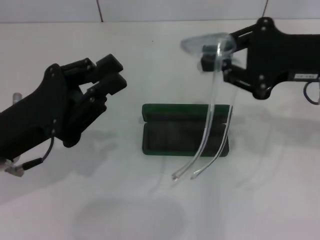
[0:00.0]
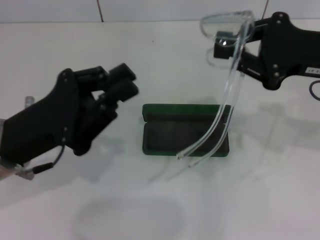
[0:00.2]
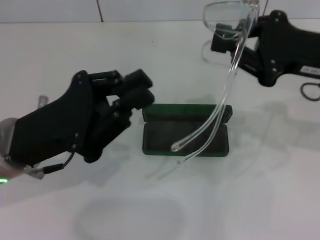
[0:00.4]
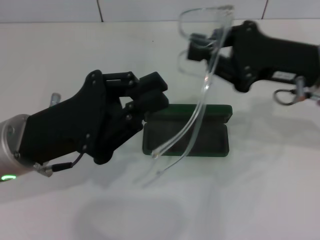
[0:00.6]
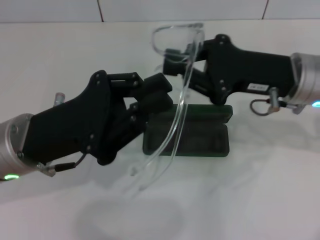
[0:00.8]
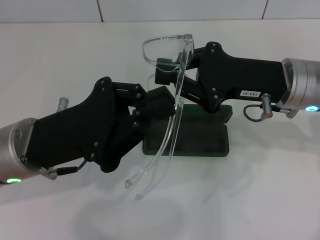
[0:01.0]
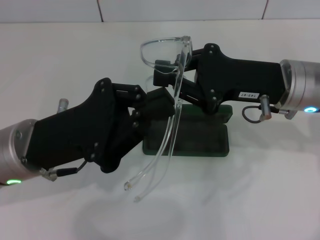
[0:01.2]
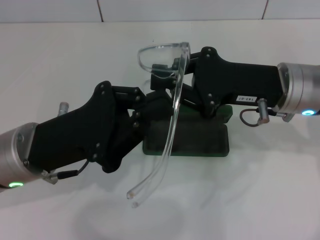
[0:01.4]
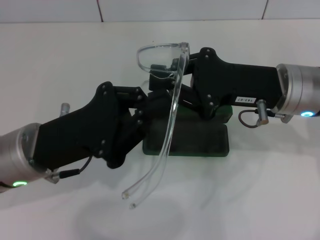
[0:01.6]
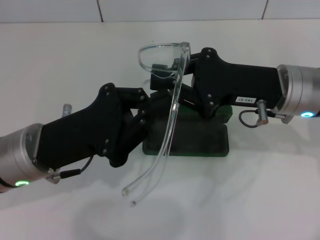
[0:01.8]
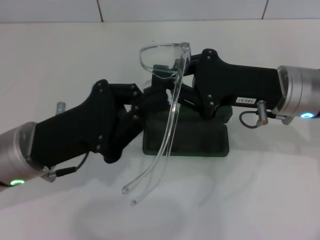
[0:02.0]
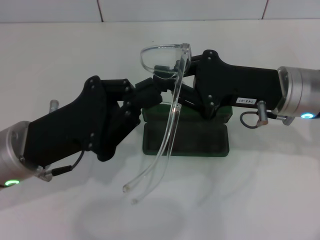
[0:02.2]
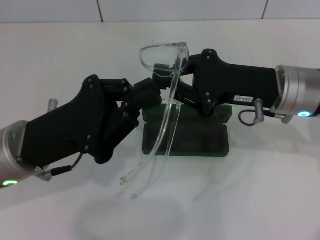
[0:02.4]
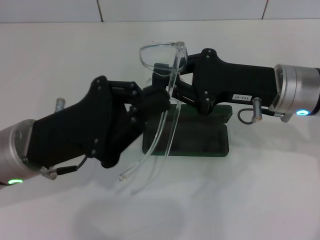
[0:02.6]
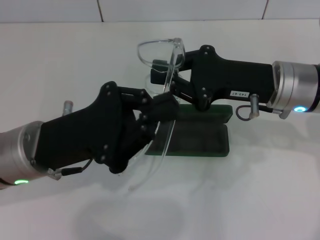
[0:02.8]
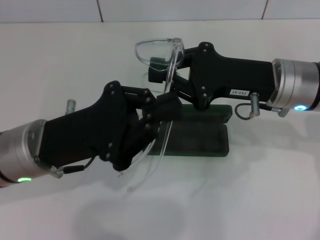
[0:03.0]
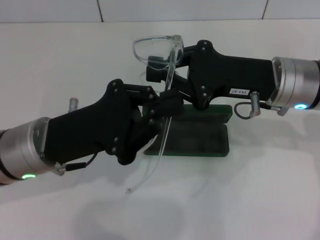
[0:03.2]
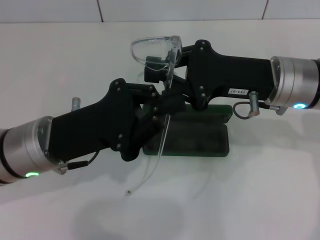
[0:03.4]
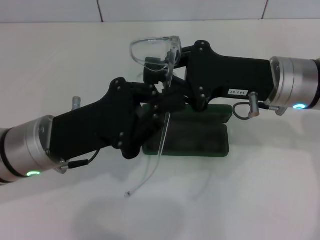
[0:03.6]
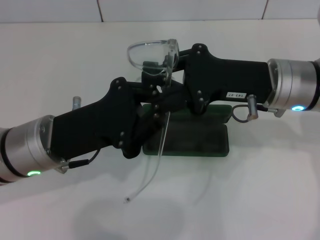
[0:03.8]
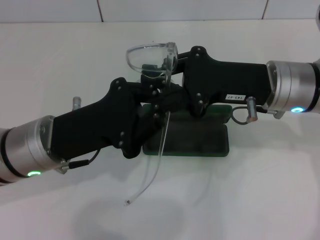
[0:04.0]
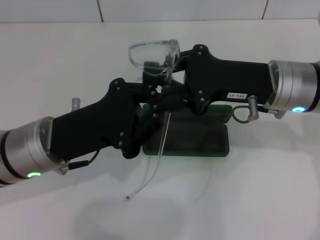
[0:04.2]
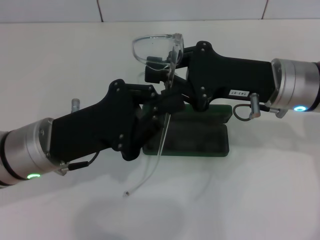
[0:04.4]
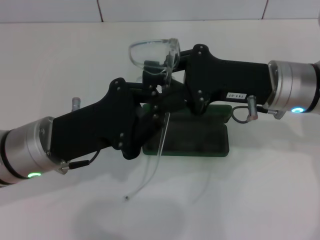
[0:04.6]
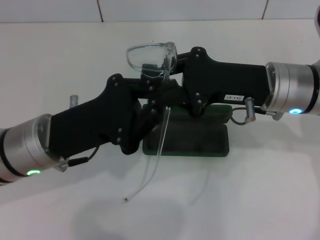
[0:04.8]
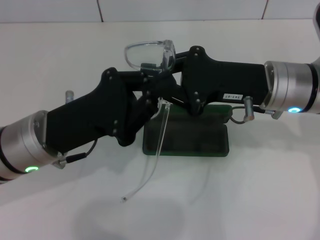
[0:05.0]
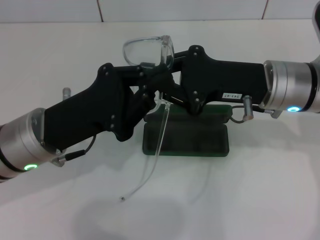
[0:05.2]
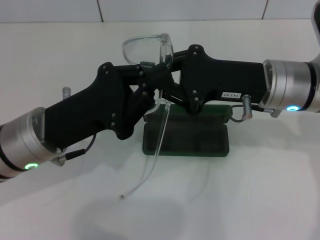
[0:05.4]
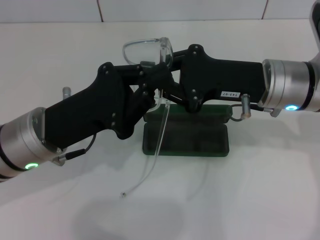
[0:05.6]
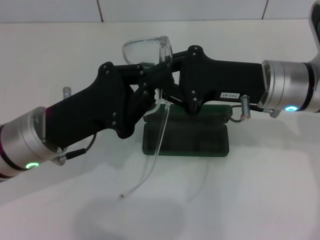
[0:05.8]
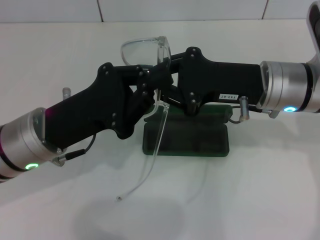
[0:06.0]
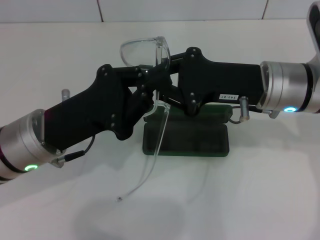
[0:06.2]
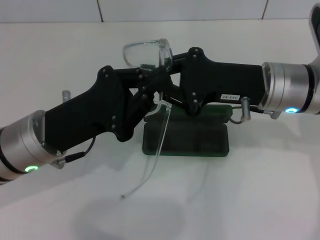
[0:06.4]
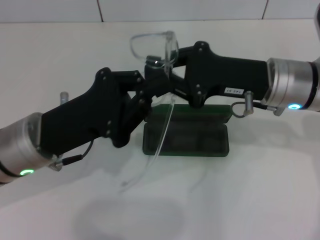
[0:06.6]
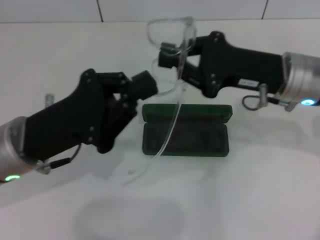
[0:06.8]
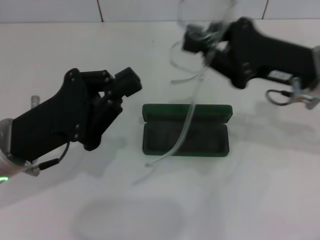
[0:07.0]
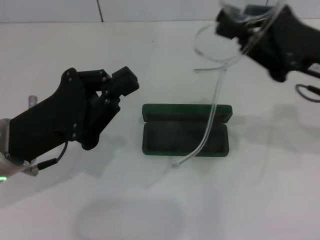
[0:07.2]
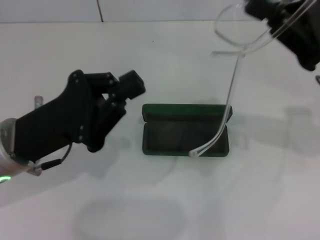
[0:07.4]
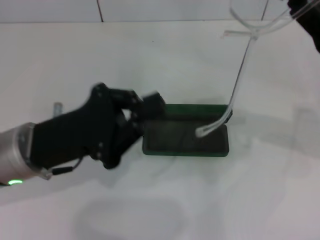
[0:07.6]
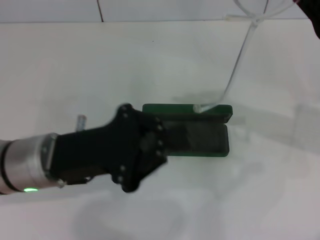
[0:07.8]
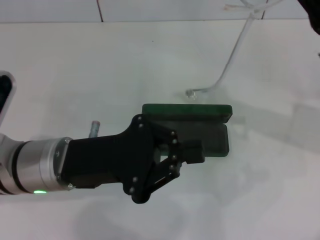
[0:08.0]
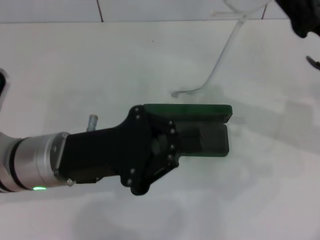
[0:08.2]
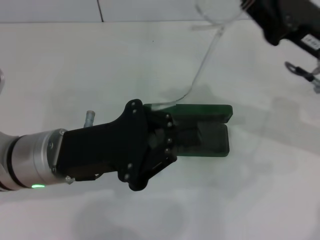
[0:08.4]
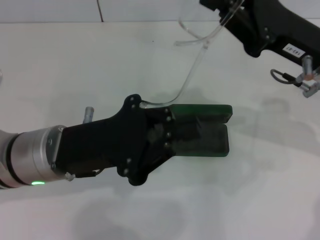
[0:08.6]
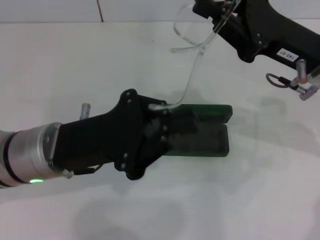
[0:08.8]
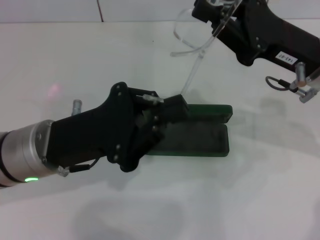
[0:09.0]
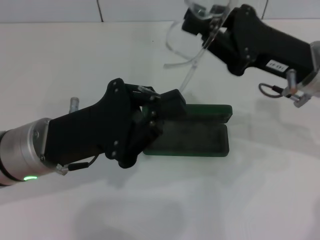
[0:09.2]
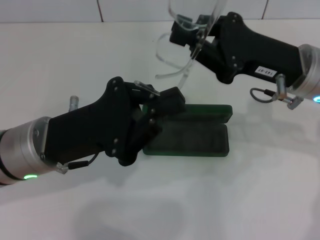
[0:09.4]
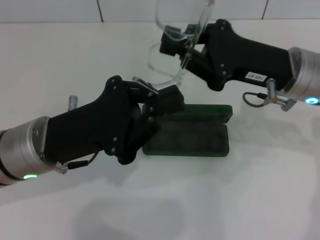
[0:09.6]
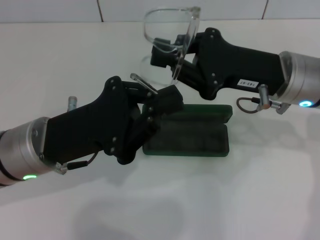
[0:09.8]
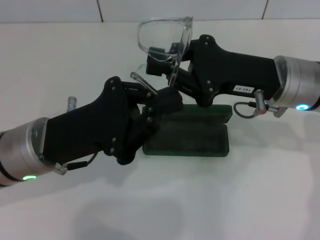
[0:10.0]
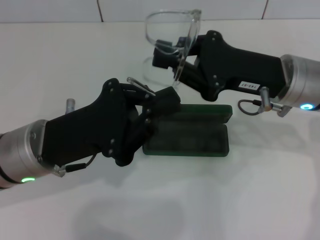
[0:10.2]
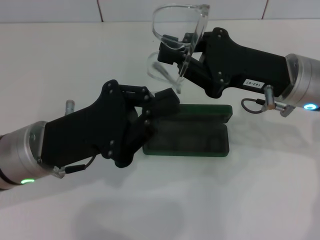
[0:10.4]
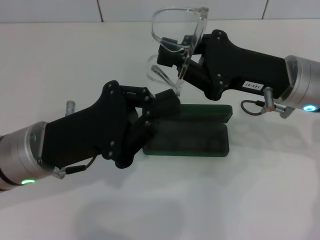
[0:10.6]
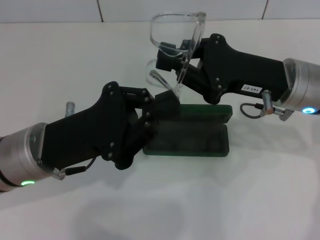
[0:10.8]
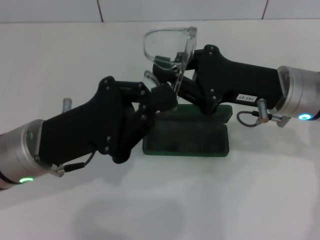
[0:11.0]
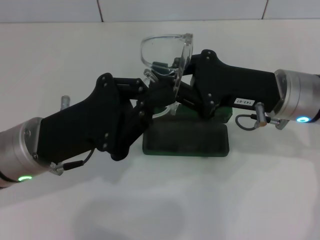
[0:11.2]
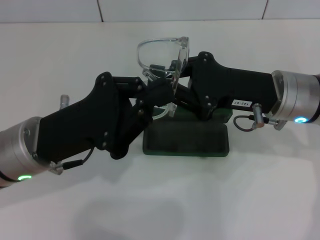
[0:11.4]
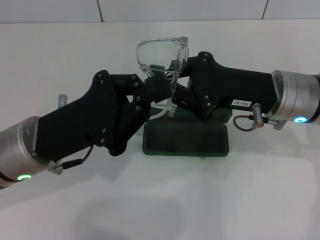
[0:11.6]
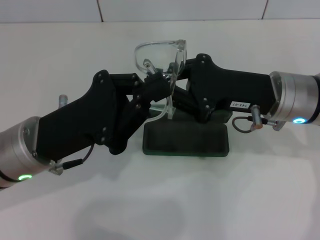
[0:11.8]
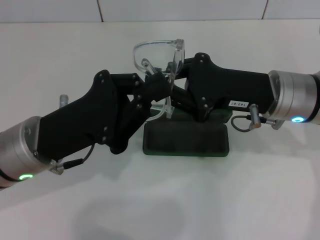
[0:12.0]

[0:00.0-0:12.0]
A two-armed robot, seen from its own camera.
0:00.0 to 0:01.6: The right gripper goes some 10 cm downward and to the left. Meanwhile the left gripper closes its fingers.
0:01.6 to 0:06.0: The grippers move only a little.
0:06.0 to 0:07.6: The right gripper is displaced to the right by about 10 cm.
0:07.6 to 0:09.0: The right gripper shifts by roughly 5 cm.
0:10.4 to 0:12.0: The grippers make only small movements.

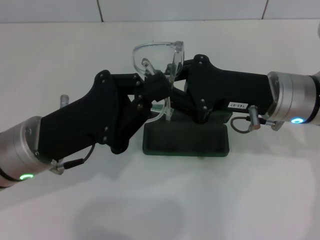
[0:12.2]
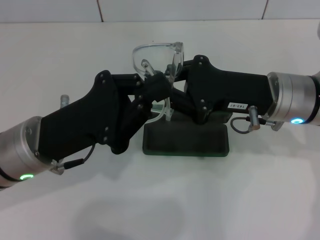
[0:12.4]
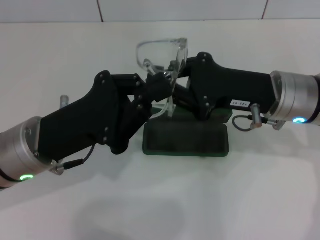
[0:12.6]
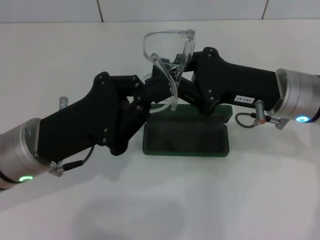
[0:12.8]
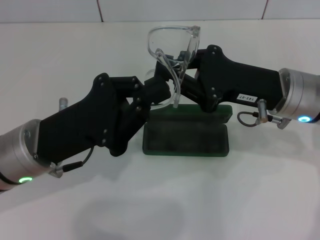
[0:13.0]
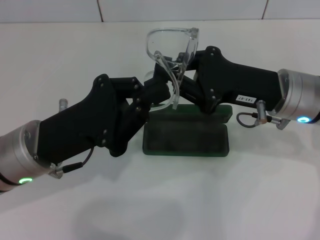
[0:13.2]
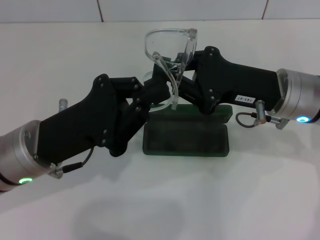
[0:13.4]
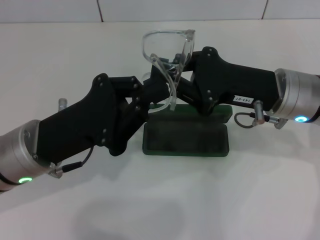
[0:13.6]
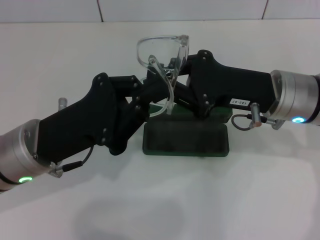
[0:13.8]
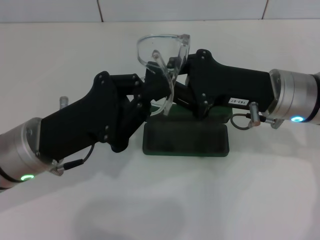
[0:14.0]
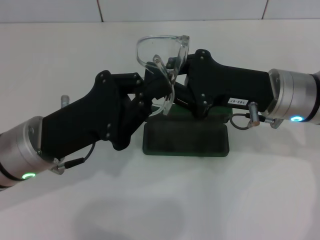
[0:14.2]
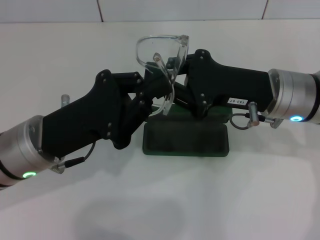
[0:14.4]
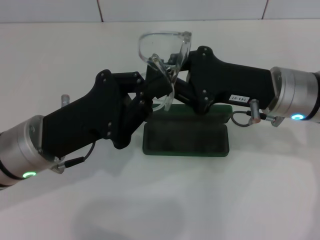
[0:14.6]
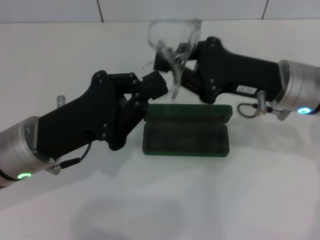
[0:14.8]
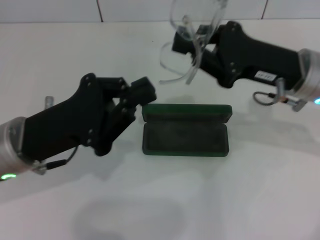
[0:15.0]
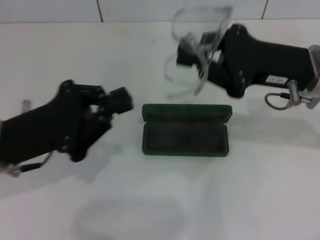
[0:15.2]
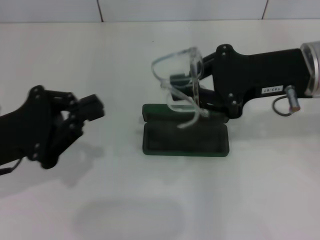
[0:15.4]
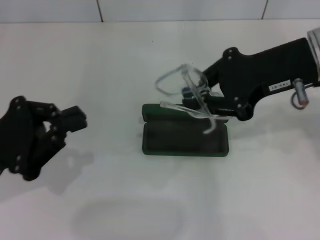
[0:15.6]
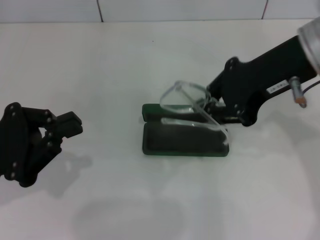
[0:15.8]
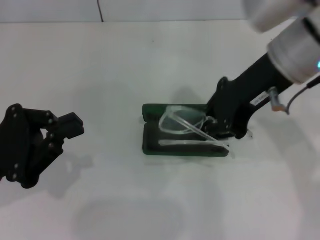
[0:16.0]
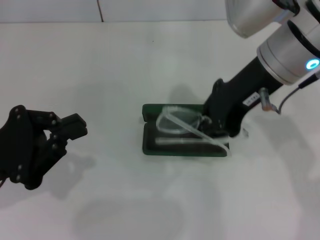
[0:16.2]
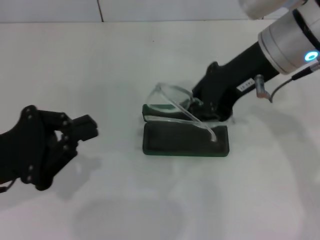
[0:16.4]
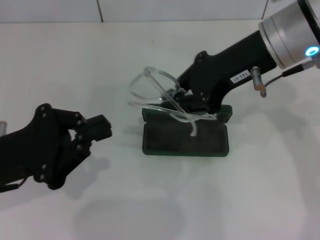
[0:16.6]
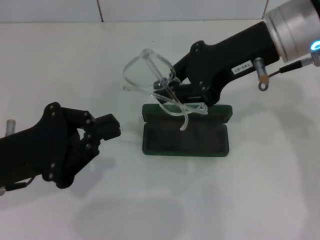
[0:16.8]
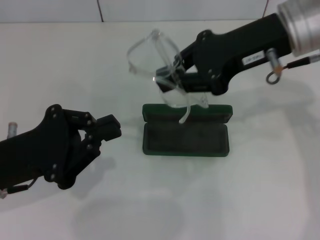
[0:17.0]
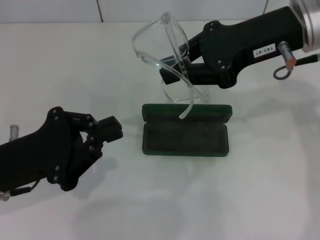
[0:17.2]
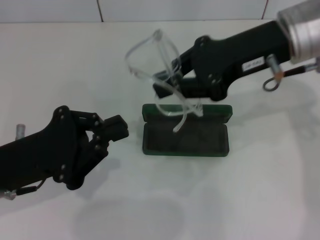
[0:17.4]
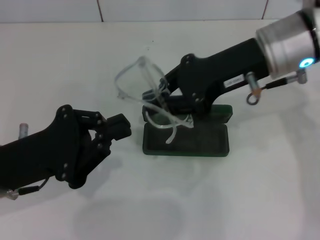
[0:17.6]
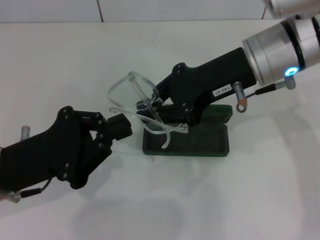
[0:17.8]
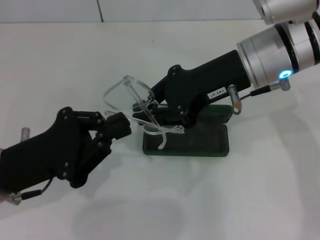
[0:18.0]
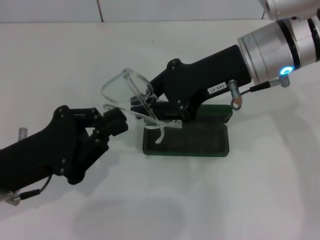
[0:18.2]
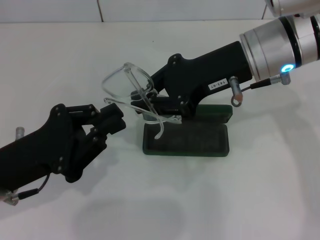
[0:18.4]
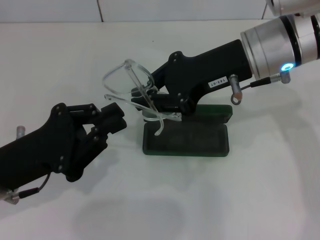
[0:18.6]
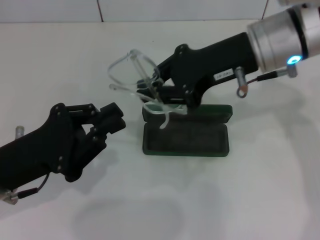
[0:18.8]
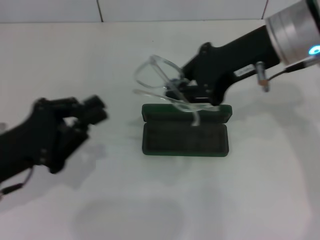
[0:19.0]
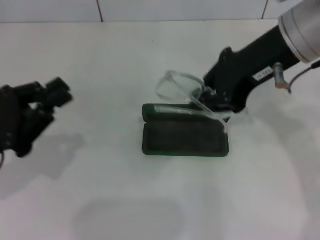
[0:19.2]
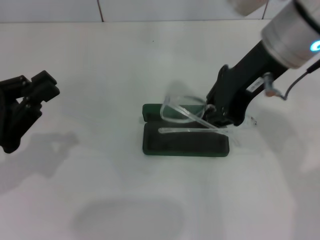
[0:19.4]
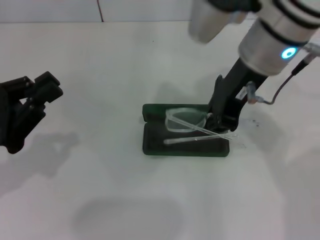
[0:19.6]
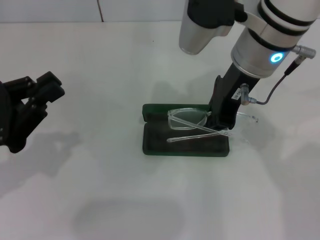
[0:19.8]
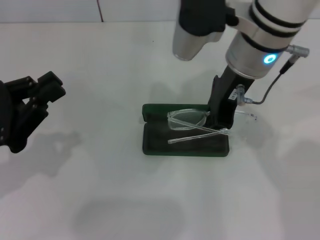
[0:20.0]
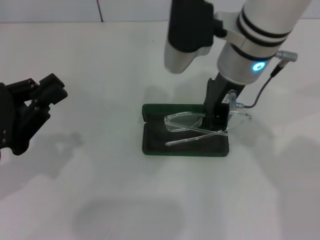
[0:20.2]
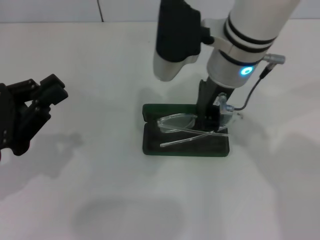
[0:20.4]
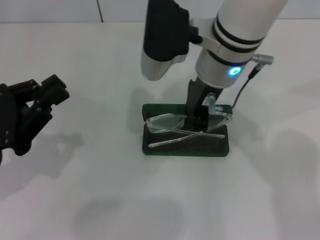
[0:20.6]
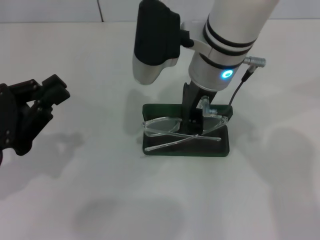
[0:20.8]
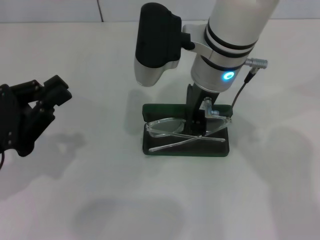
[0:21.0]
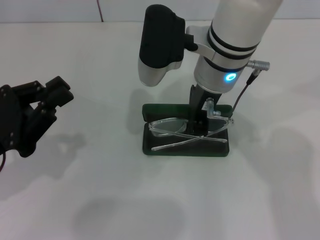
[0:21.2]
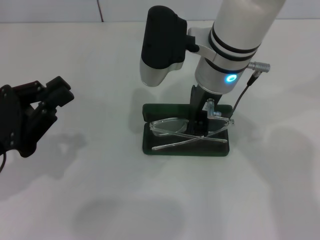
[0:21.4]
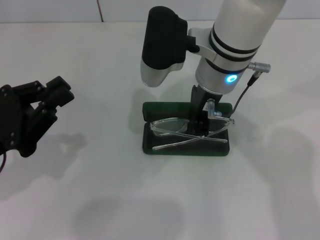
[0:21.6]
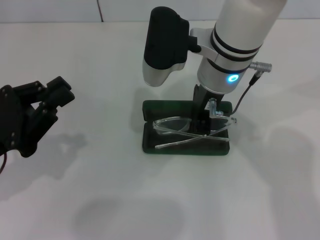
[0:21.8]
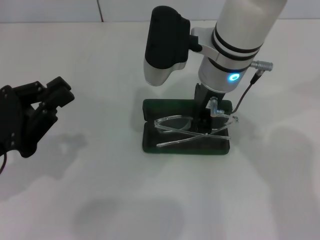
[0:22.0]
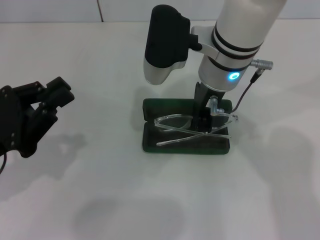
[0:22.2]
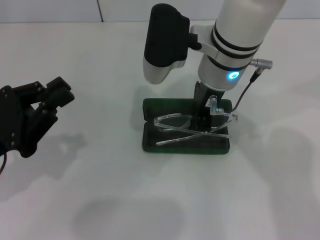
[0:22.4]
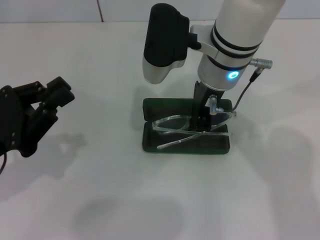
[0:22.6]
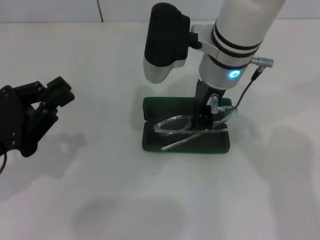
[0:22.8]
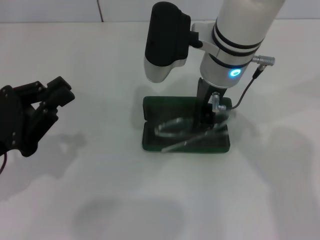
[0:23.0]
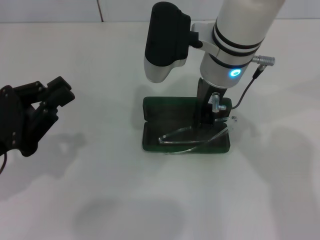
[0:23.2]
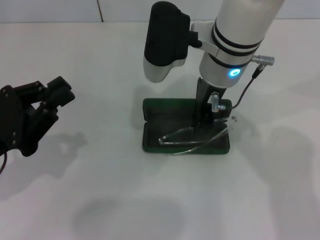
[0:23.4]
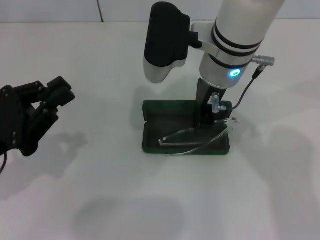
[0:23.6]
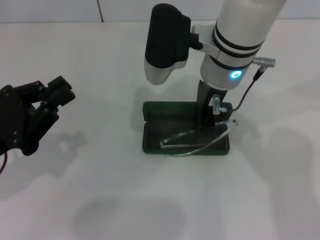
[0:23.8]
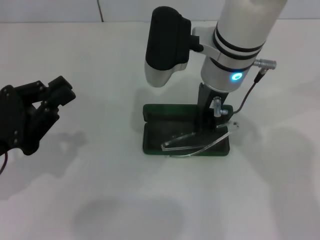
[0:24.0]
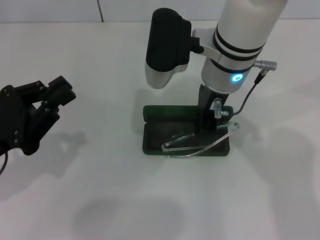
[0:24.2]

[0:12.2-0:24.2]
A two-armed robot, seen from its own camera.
0:12.2 to 0:13.8: There are only small adjustments of the grippers.
0:15.2 to 0:16.6: The right gripper heads upward and to the left, covering some 10 cm.
0:18.2 to 0:19.8: The left gripper travels to the left by approximately 5 cm.
0:19.8 to 0:21.2: The right gripper changes place by about 5 cm.
0:21.2 to 0:24.2: Both grippers stay about where they are.
